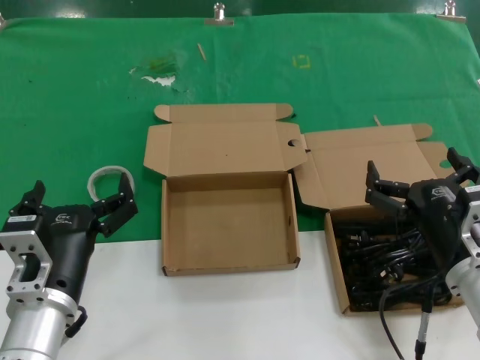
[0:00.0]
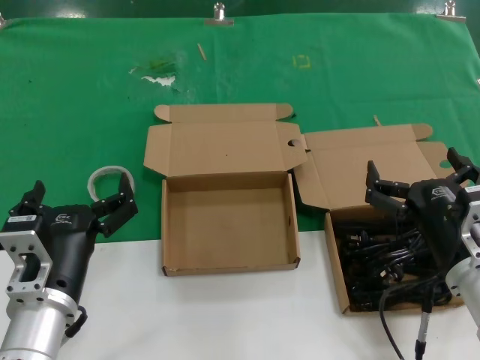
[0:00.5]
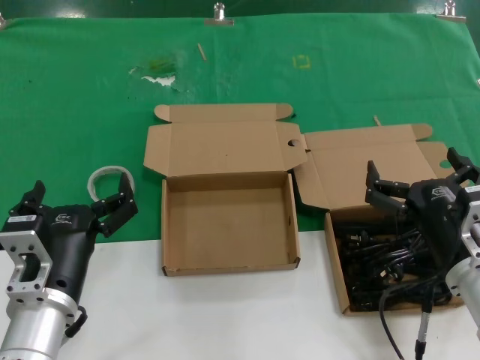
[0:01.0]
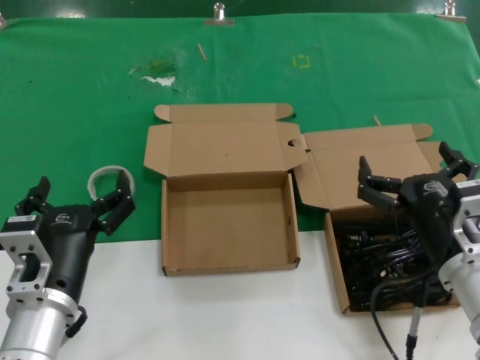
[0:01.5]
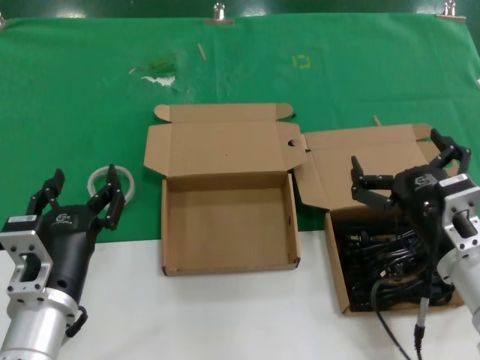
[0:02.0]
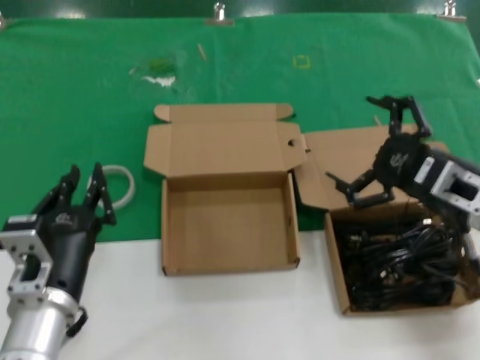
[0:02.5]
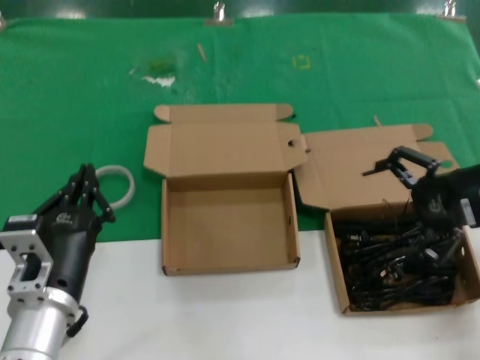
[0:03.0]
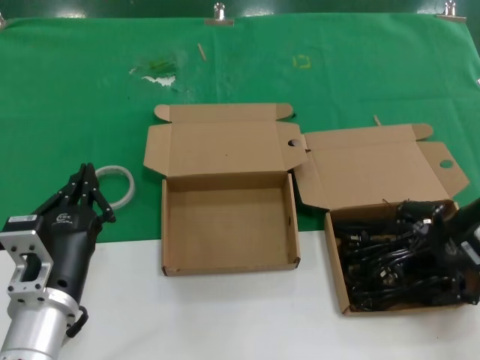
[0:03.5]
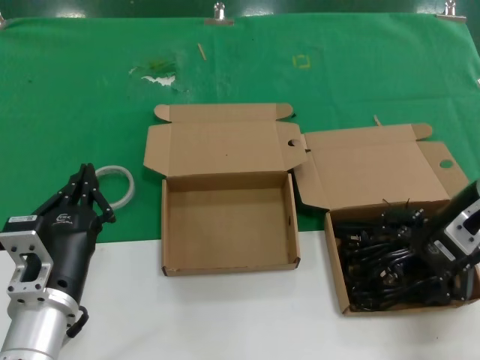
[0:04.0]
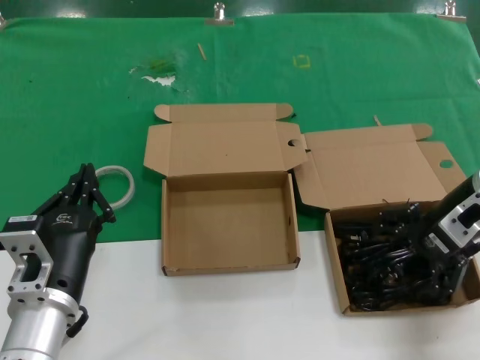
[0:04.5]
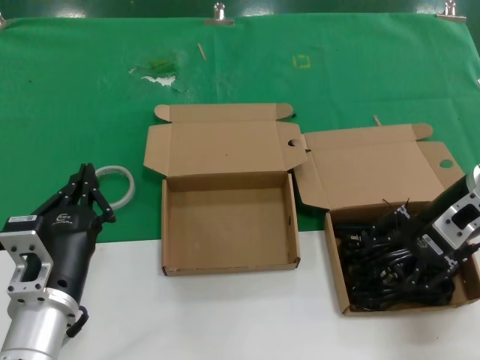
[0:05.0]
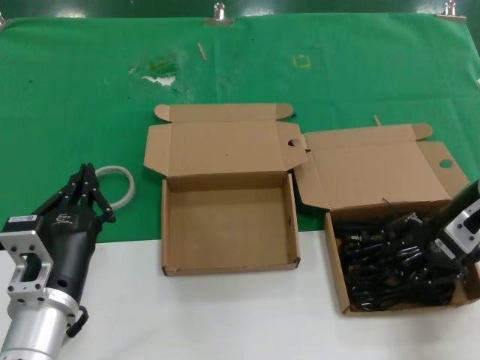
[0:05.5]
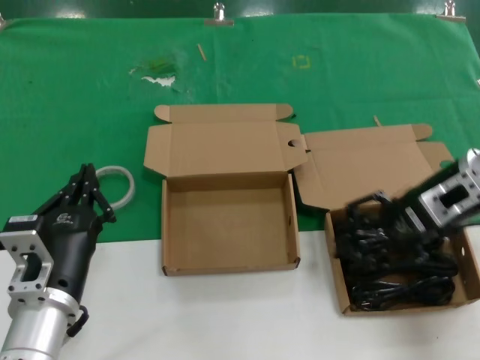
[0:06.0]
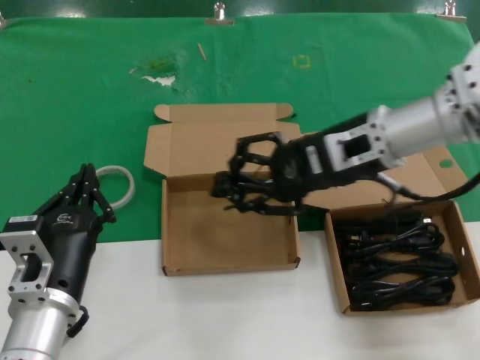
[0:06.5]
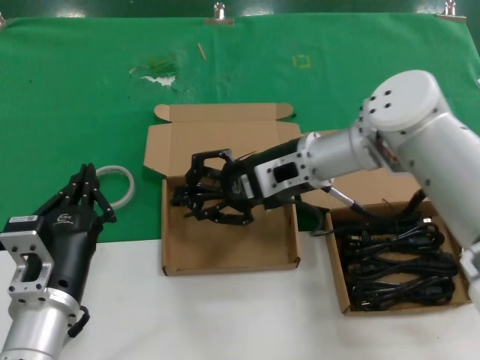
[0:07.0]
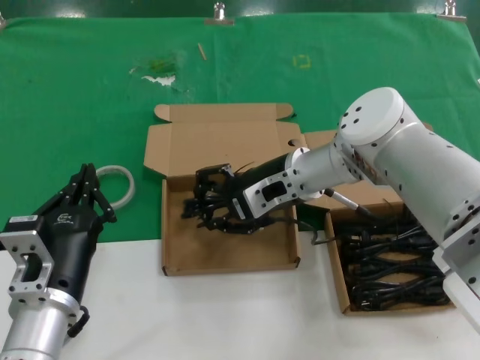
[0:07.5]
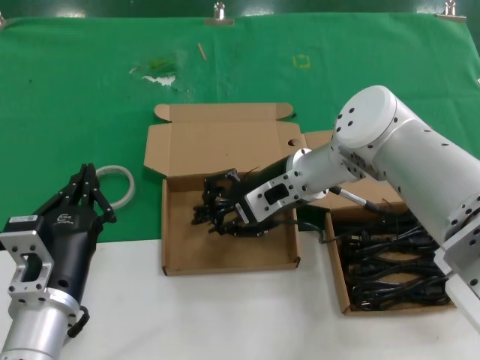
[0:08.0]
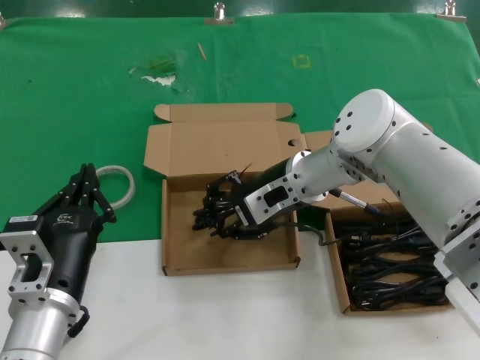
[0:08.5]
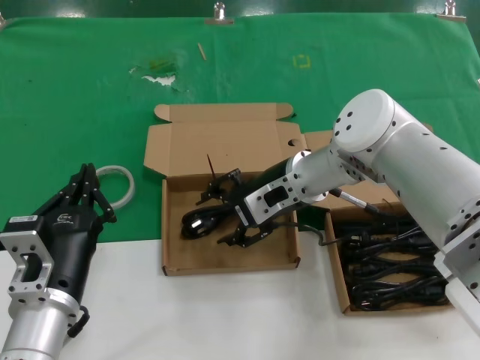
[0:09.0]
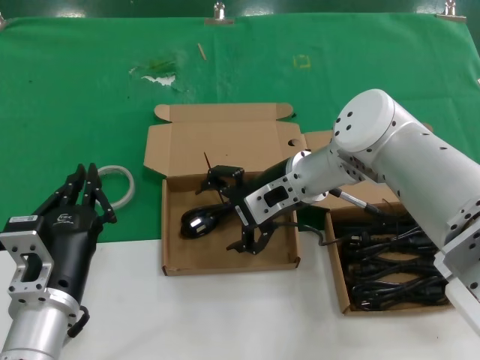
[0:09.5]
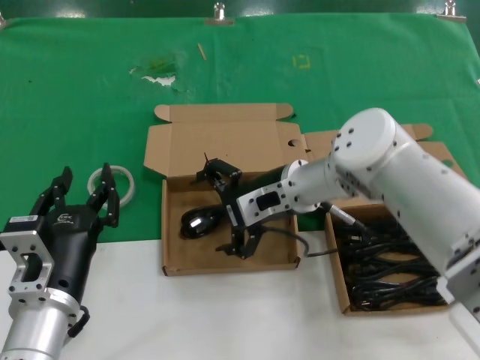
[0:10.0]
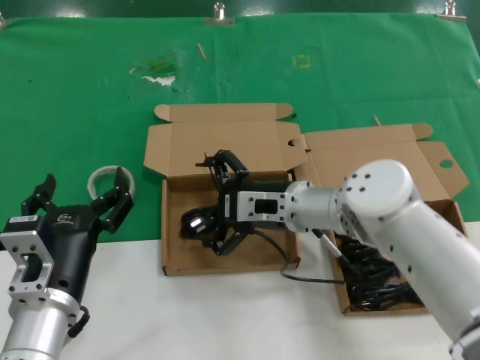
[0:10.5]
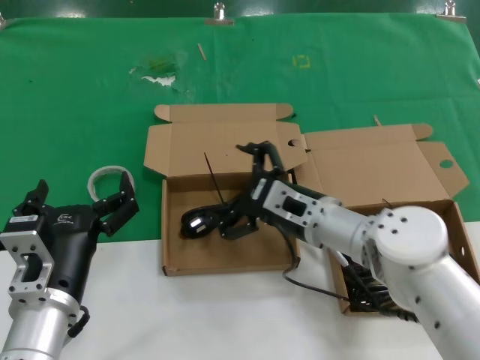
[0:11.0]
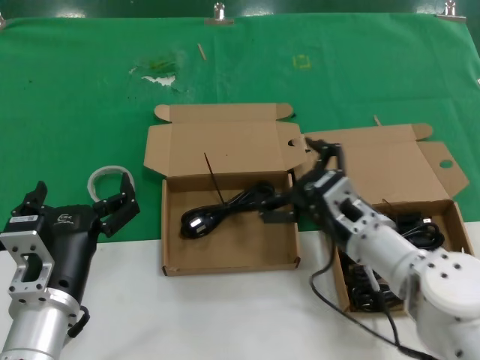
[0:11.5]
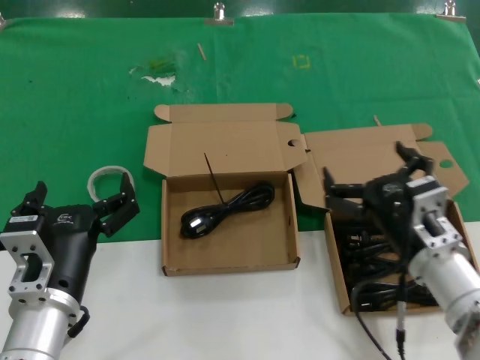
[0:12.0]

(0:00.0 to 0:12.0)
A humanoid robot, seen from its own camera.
Task of the whole recording: take the parts from the box containing them and put them into an empty box.
Step, 0:00.0 - 0:05.0: Grasp the data cable.
Step, 0:05.5 - 0:08.5: Place the data cable in the another box.
0:00.0 - 0:02.0: The hands make only small movements.
0:02.0 - 0:04.0: The right hand goes approximately 20 cm forward, upward and to the right.
0:04.0 - 0:06.0: The hands stay close to where they were, moving slightly.
0:06.0 - 0:08.0: The right hand moves to the left, approximately 20 cm.
0:08.0 - 0:10.0: The hands move only a little.
0:10.0 - 0:12.0: The right hand is displaced backward, to the right and downward by approximately 20 cm.

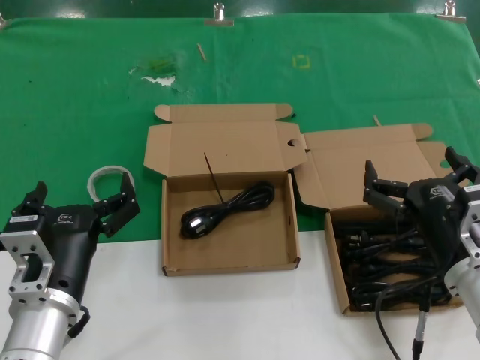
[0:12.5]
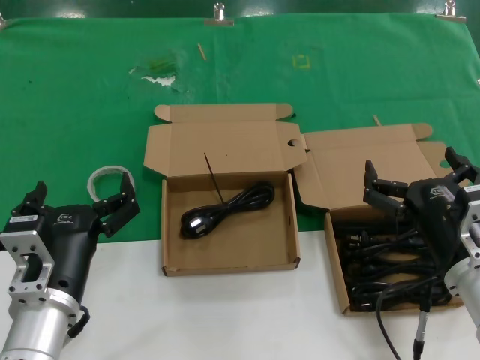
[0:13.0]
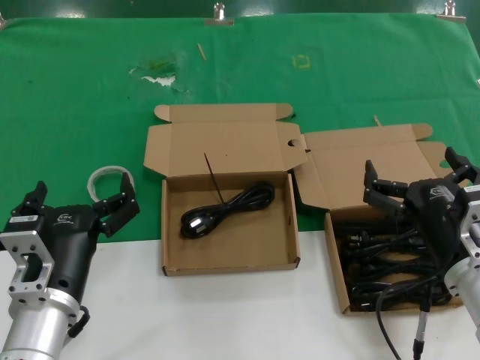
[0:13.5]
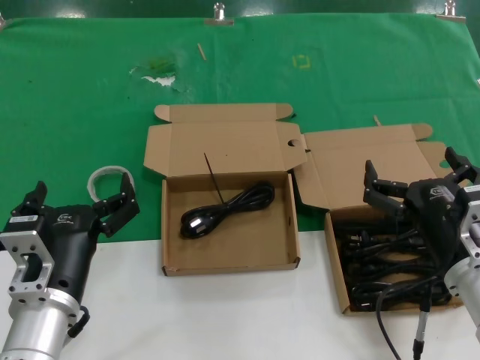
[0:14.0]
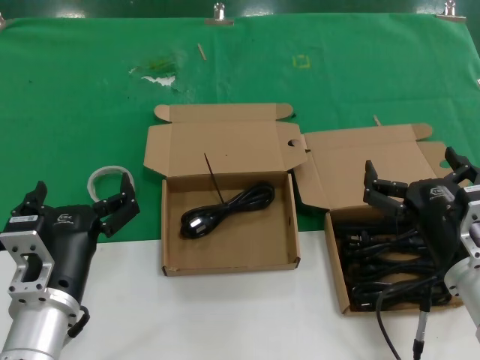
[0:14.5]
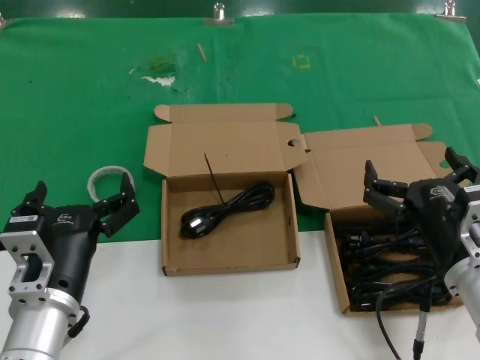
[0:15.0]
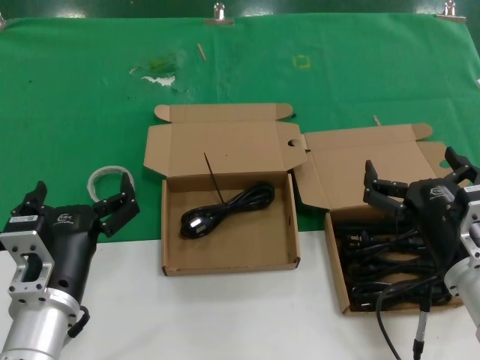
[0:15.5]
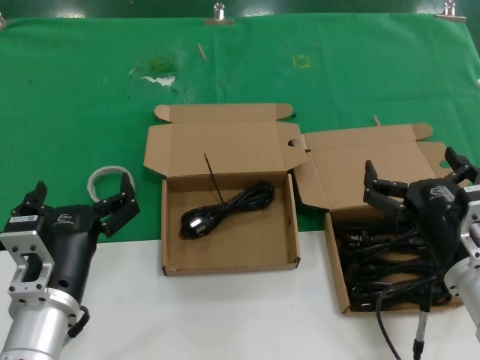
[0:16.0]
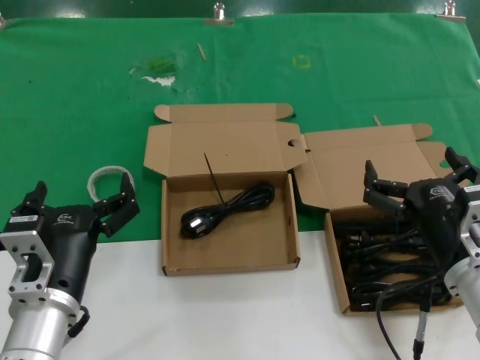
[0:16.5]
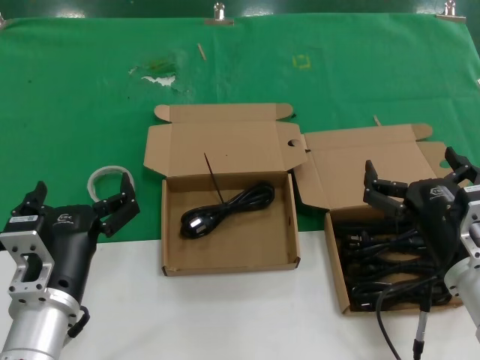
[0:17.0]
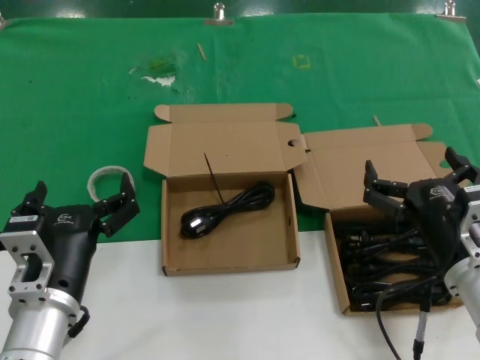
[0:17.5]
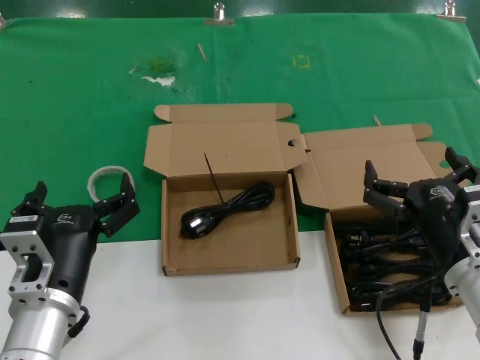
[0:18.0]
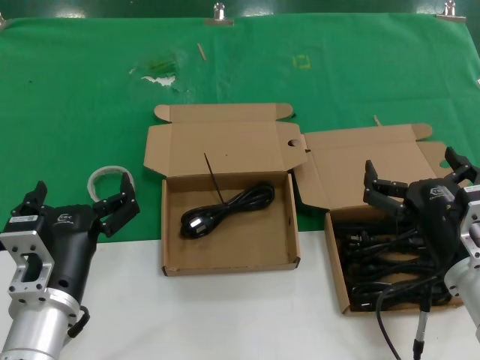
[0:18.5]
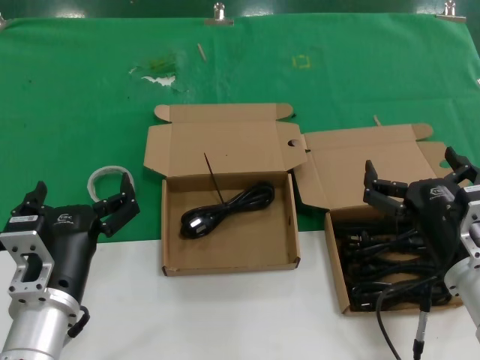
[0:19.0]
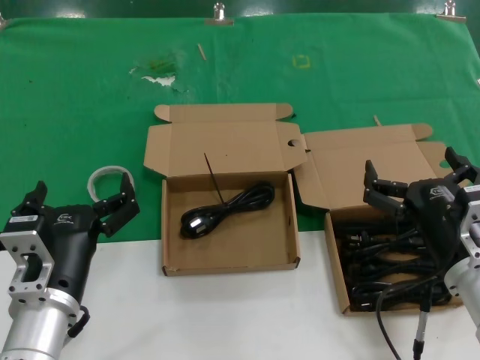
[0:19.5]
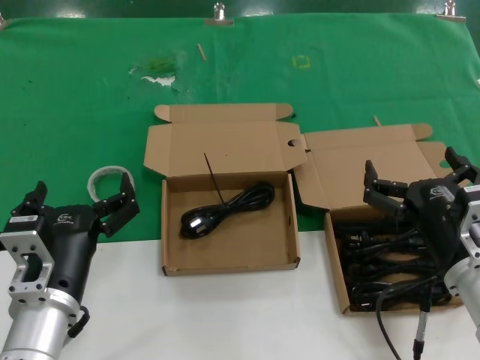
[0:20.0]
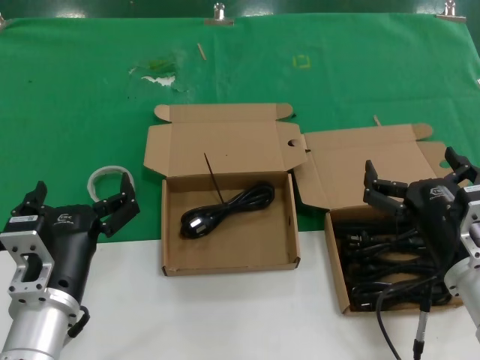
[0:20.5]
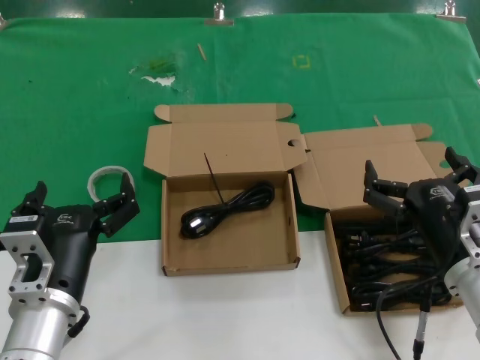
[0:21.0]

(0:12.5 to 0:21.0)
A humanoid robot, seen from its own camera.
Task of the whole recording: take the parts from the box containing them and put them into an empty box.
0:12.5 - 0:21.0: The two hands keep their place.
